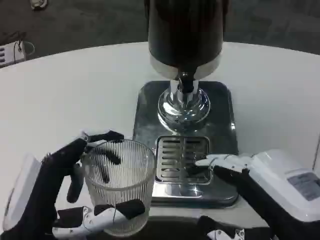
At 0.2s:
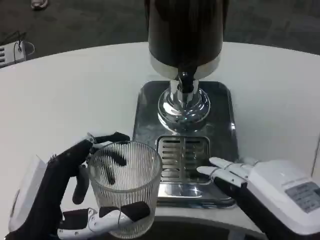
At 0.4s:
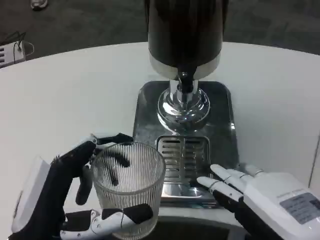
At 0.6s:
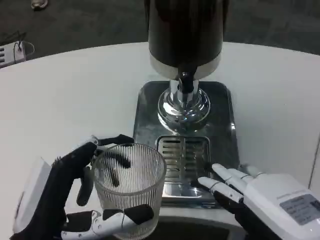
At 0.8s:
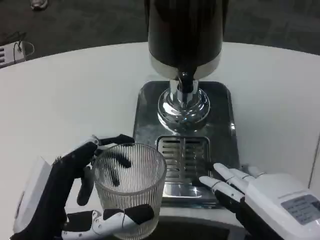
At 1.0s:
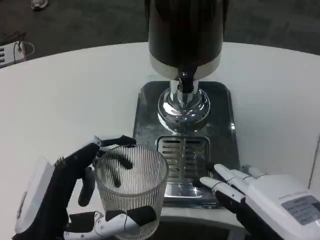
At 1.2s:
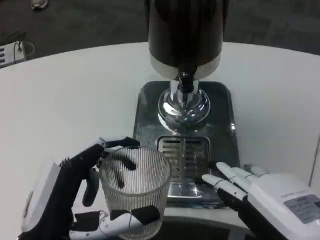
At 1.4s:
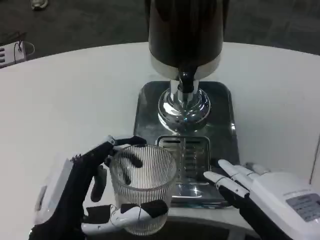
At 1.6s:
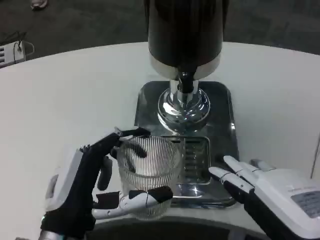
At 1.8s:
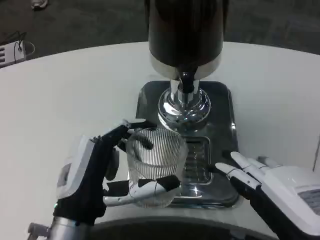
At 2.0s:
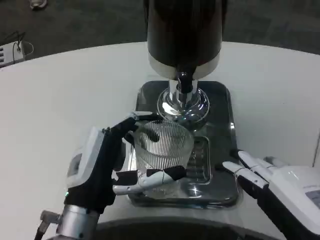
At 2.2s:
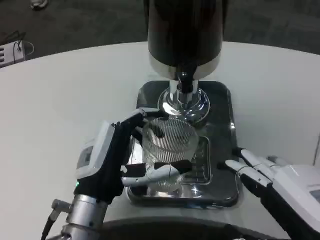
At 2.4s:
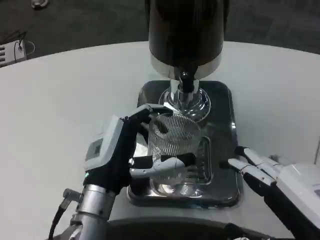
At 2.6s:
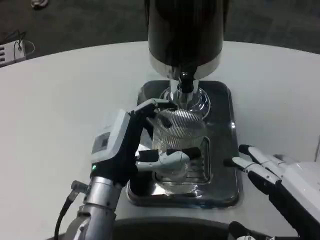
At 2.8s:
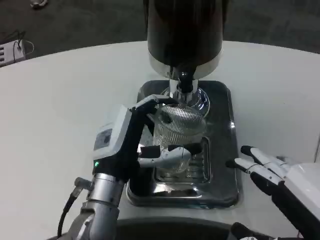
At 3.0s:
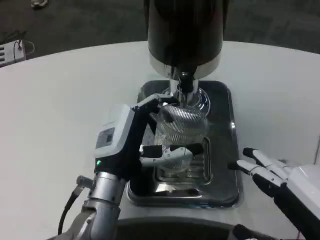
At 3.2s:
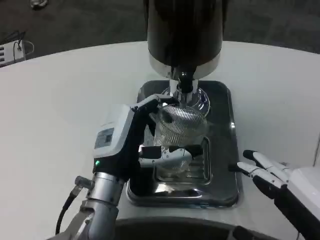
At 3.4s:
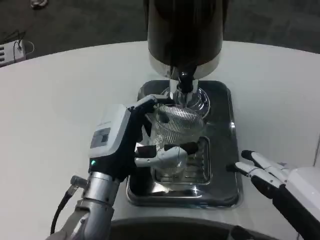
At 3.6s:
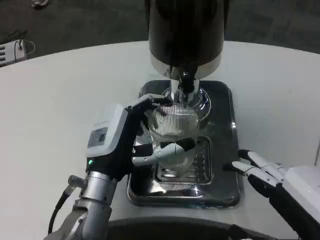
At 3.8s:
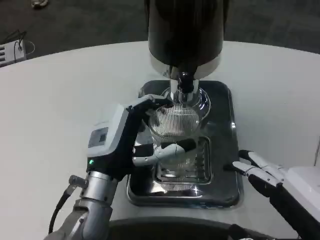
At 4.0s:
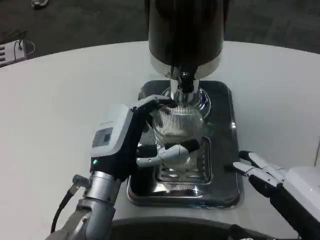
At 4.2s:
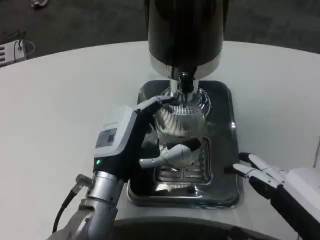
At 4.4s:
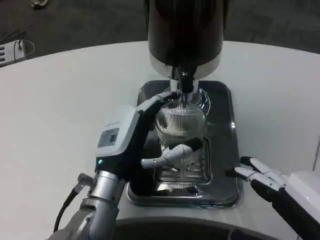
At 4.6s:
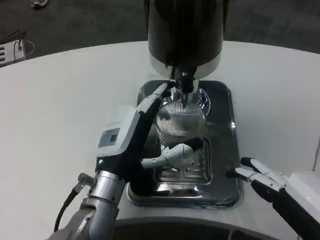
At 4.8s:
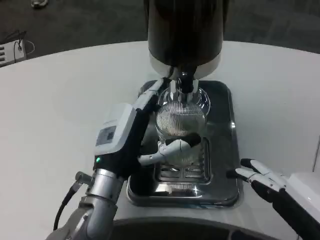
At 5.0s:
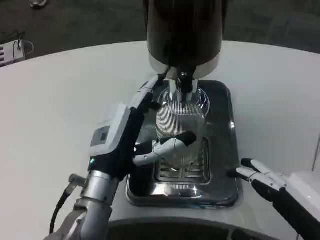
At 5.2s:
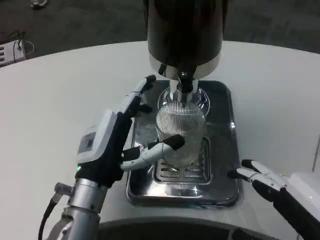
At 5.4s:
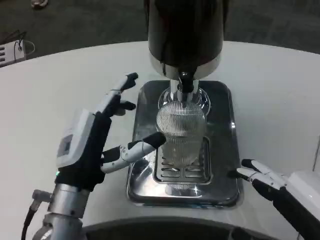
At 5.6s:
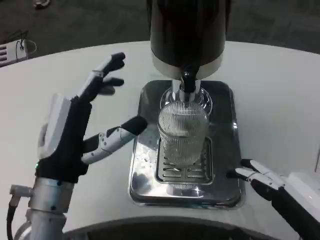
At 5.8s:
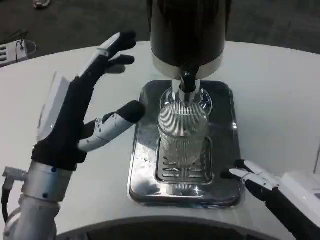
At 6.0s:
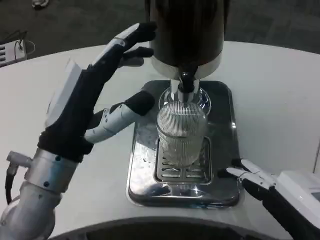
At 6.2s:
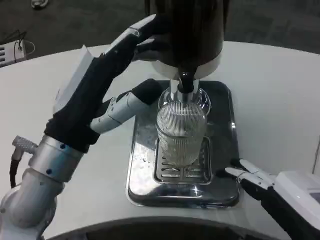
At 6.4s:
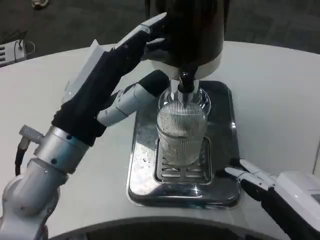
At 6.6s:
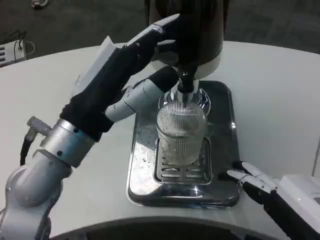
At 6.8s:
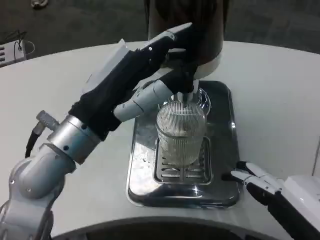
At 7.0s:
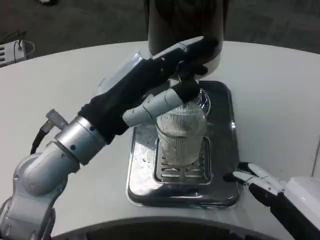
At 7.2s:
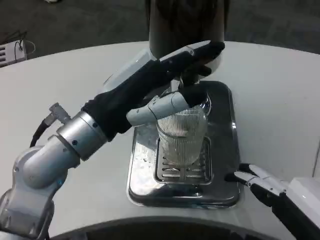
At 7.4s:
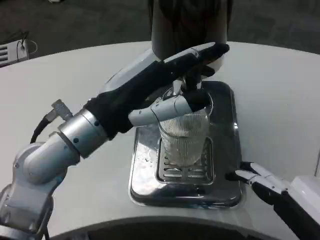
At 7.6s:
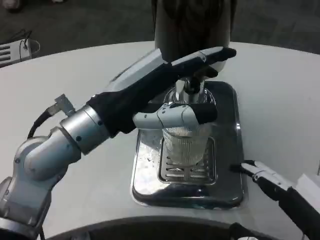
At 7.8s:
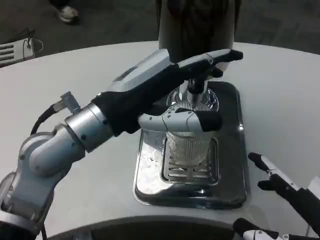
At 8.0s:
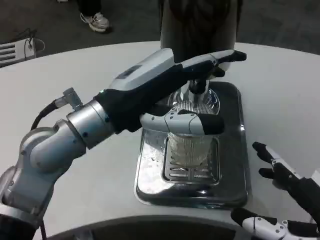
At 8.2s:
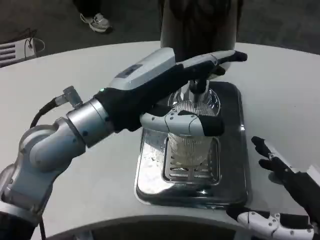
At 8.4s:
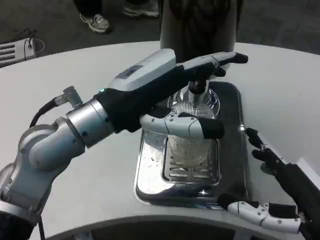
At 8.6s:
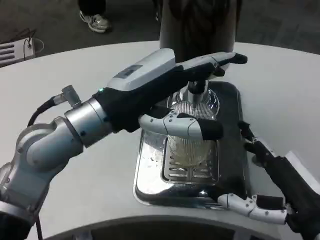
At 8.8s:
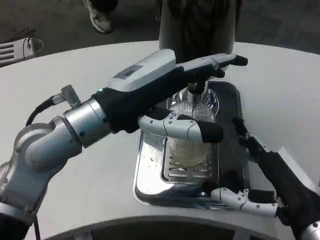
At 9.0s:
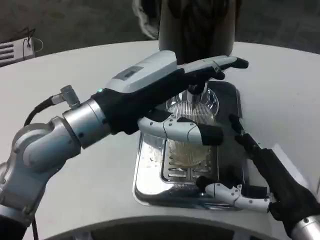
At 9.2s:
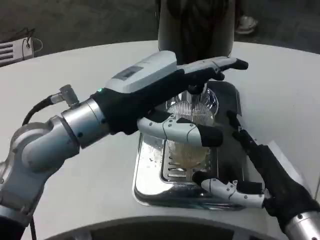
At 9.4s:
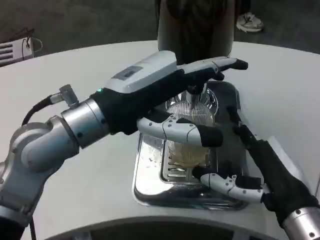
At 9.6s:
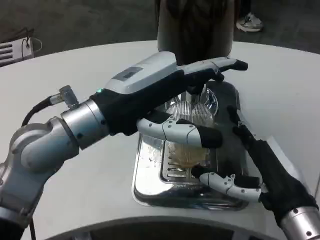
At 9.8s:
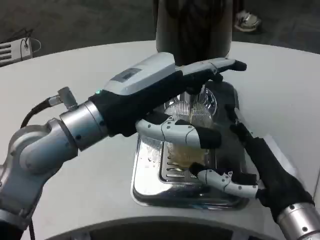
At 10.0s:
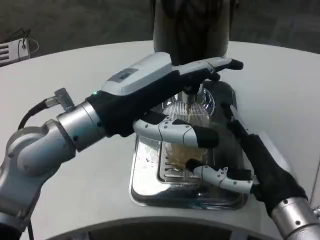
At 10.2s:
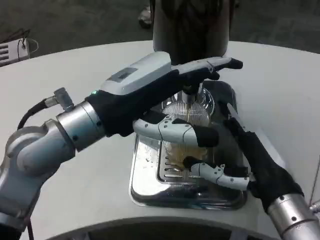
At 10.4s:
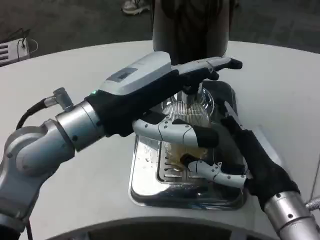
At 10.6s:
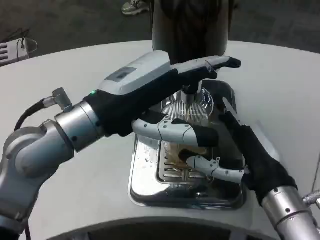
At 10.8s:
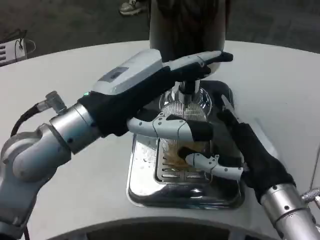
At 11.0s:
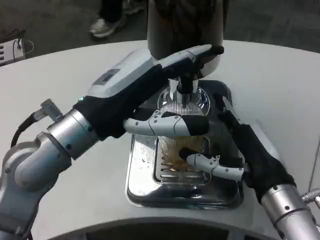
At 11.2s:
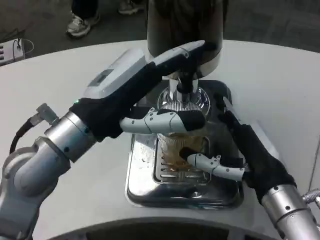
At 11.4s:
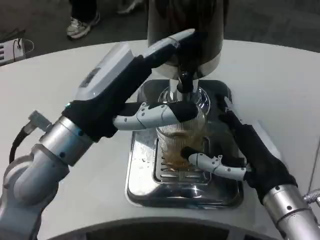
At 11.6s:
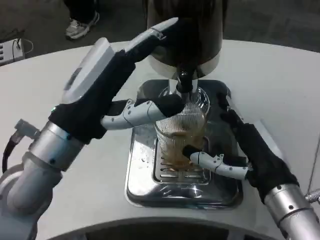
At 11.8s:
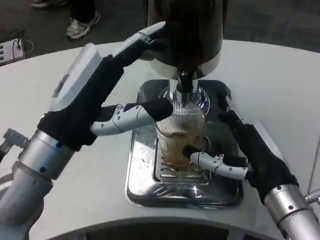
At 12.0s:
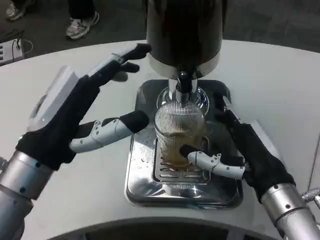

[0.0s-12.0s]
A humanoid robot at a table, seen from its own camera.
Task of the whole recording: Grasp the cup under the faucet to collect the drink, then remove the cup.
0.0s to 1.6s: The left hand shifts by about 5 cm.
1.6s to 3.0s: The left hand heads forward, covering approximately 10 cm.
3.0s to 4.4s: The two hands keep their place.
4.4s to 6.0s: The left hand shifts about 10 cm upward and backward.
6.0s to 7.6s: The left hand moves upward, about 5 cm.
7.6s to 9.0s: The right hand travels forward by some 10 cm.
10.4s to 12.0s: The left hand travels downward by roughly 5 cm.

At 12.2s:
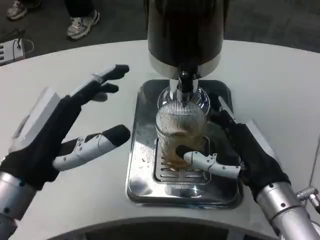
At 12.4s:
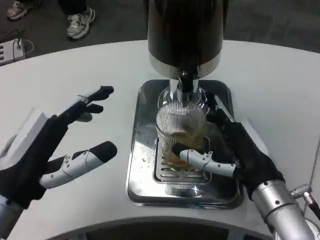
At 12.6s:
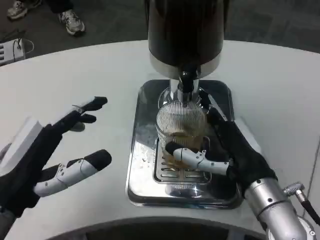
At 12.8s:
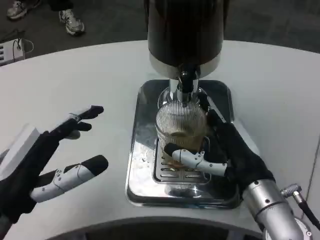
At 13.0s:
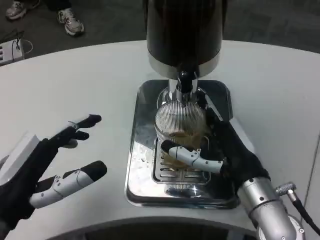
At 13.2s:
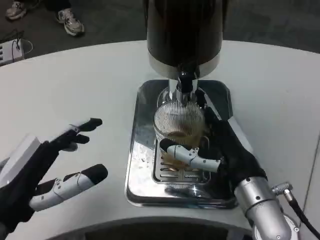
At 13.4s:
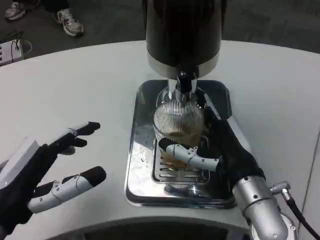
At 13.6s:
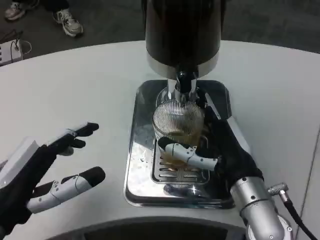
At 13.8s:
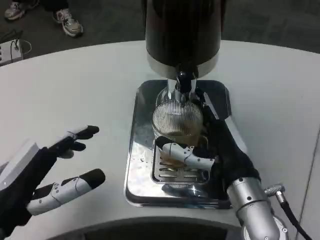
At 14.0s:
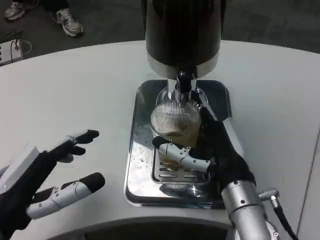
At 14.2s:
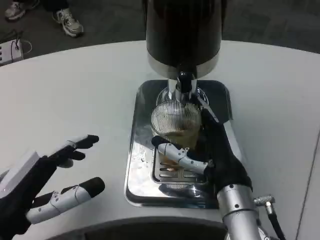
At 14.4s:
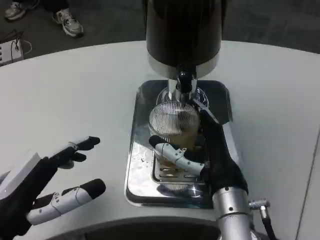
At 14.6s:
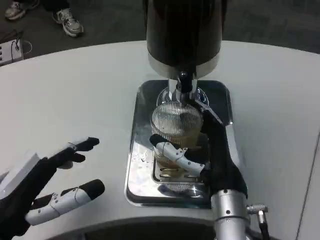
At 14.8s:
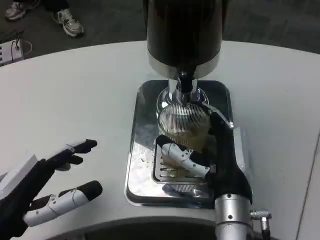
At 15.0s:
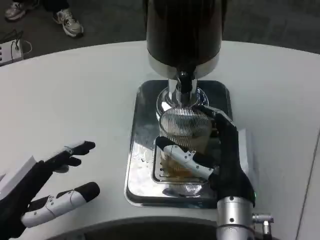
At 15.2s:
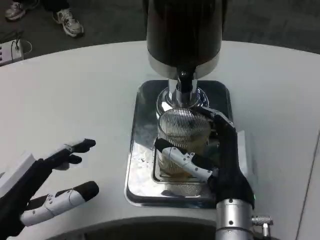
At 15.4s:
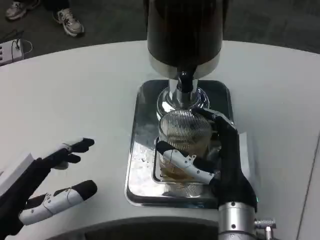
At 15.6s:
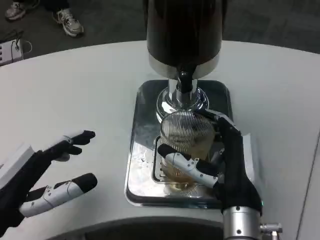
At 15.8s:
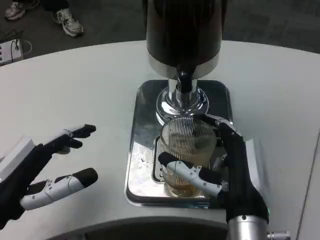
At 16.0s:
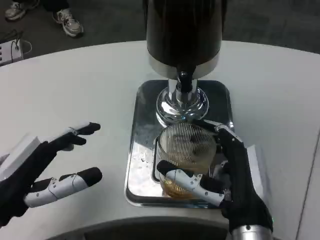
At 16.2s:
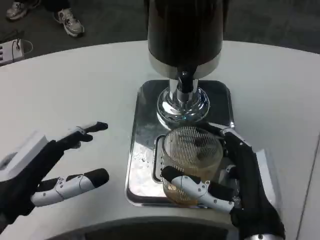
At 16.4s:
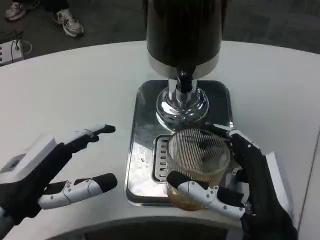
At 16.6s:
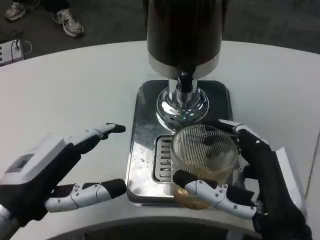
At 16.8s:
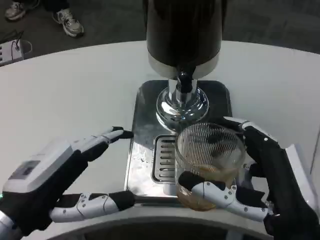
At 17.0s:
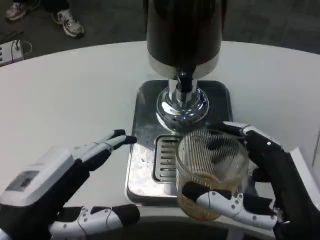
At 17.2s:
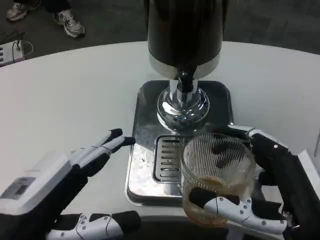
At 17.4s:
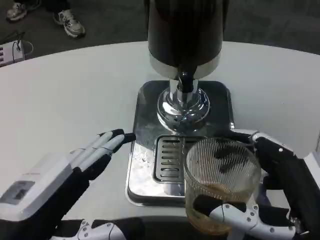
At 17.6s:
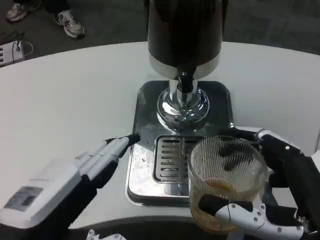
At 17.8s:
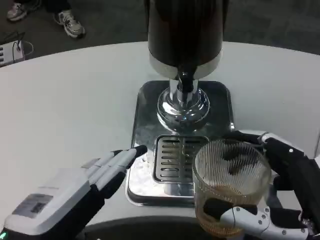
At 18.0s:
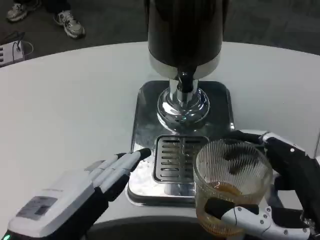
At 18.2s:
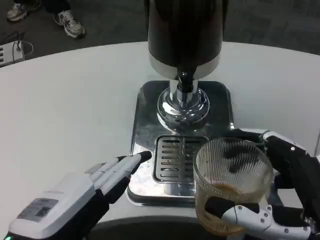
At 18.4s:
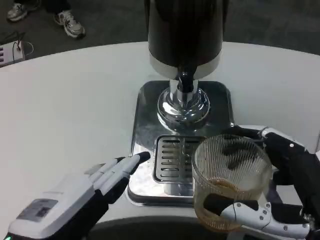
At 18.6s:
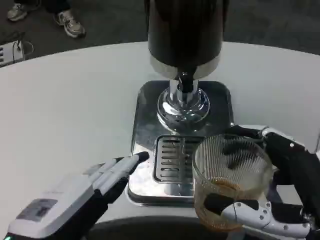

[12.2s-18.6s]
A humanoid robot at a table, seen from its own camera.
Task of the whole recording: Grasp the cup under the faucet to collect the drink, then remove the cup.
12.2s to 13.8s: The left hand shifts by some 5 cm.
13.8s to 15.4s: The right hand moves roughly 5 cm.
15.4s to 17.0s: The right hand is displaced backward and to the right by roughly 15 cm.

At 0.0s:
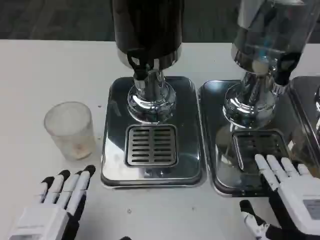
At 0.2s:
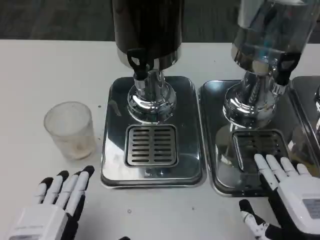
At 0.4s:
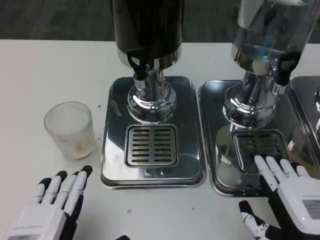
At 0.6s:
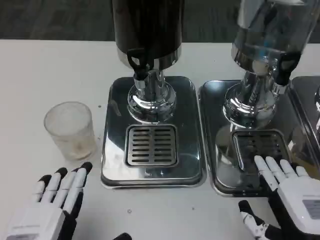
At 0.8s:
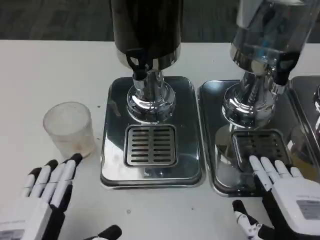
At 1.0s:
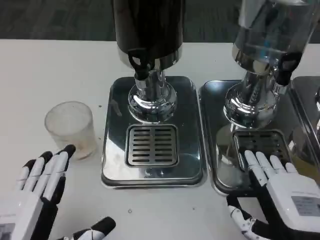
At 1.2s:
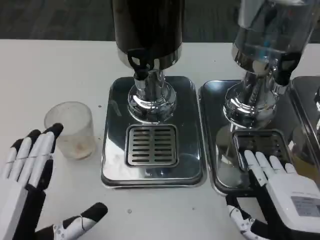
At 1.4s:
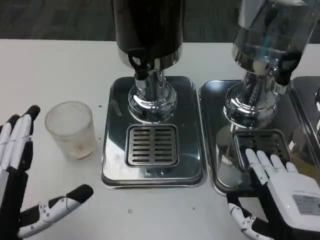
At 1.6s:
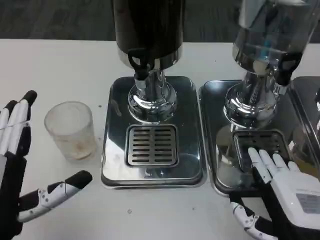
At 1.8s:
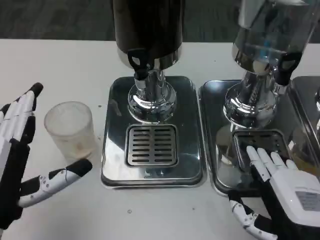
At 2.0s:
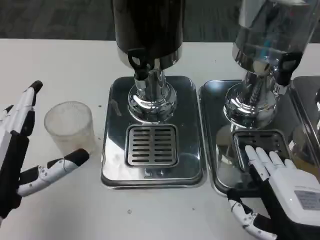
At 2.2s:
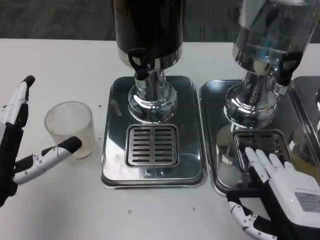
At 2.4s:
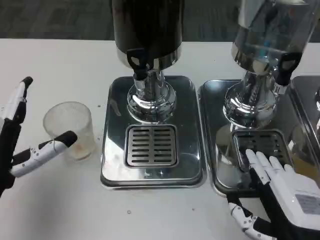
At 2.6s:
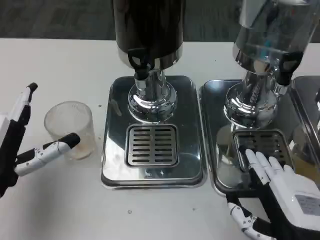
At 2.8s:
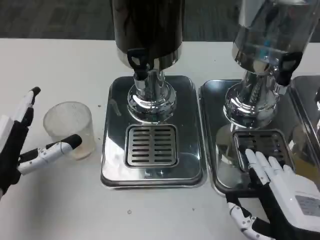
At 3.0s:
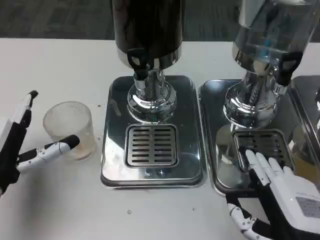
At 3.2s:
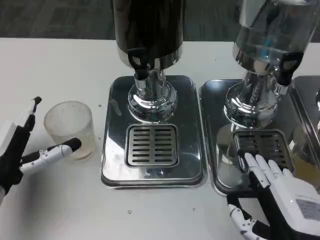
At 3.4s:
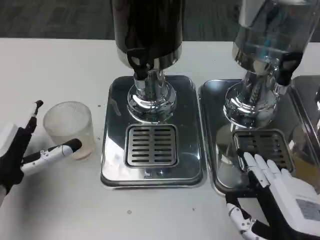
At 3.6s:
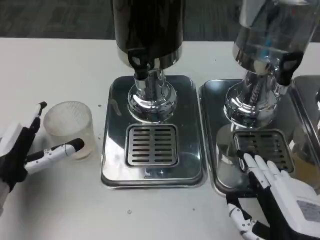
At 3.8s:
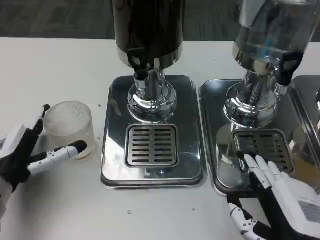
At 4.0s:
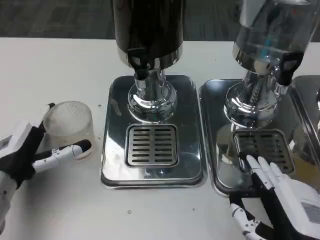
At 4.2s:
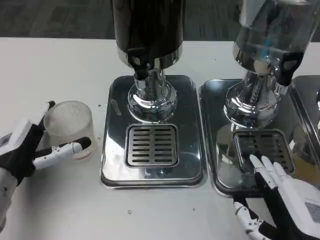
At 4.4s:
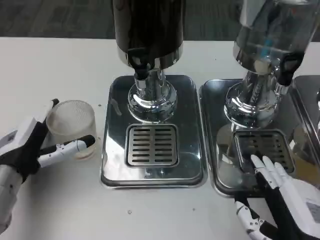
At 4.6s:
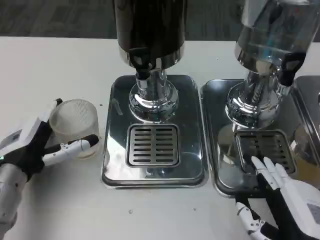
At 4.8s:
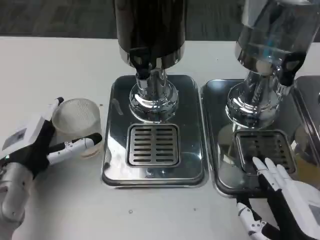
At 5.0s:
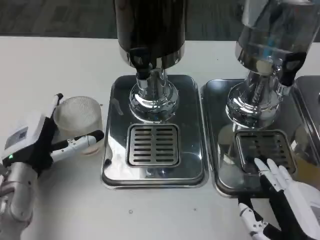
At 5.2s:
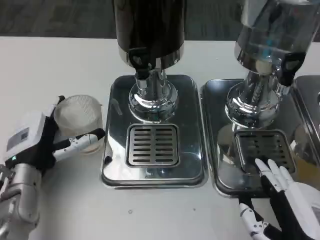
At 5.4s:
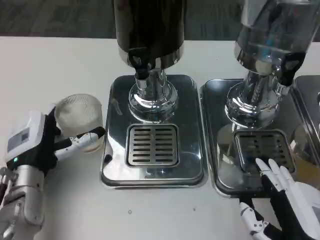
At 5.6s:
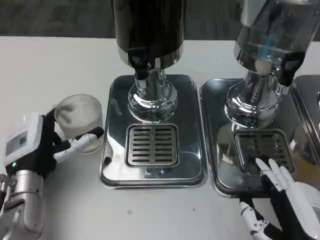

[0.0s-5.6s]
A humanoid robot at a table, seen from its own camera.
Task of the whole recording: Grasp the cup under the faucet to collect the drink, then remove the cup.
0.0s to 1.4s: The left hand shifts by roughly 5 cm.
1.4s to 2.8s: The left hand is displaced forward by approximately 10 cm.
2.8s to 4.2s: There are only small adjustments of the hands.
4.2s to 5.6s: The left hand ends up roughly 5 cm from where it was.
